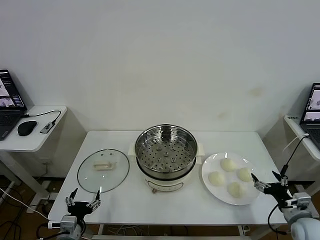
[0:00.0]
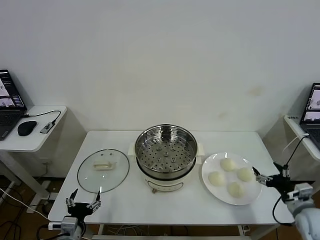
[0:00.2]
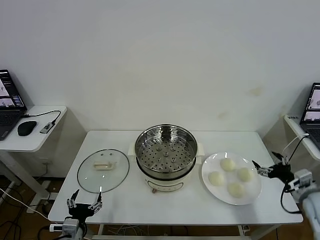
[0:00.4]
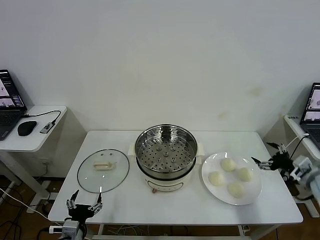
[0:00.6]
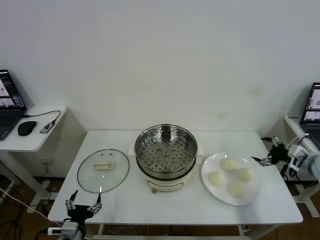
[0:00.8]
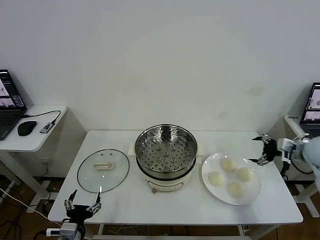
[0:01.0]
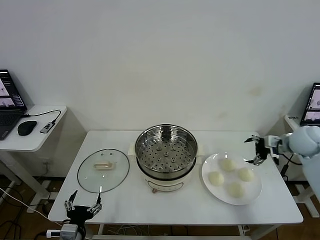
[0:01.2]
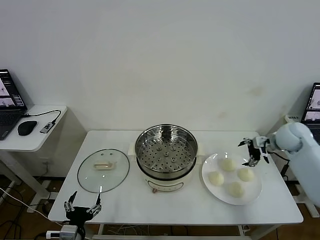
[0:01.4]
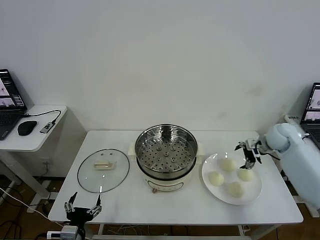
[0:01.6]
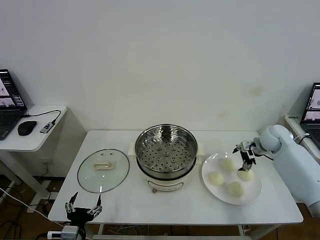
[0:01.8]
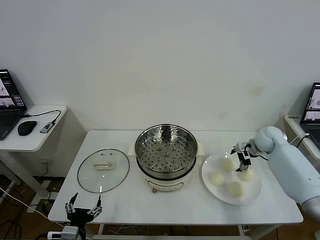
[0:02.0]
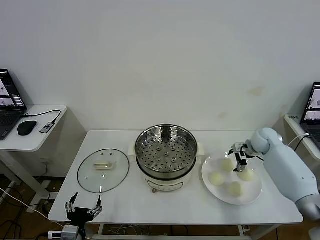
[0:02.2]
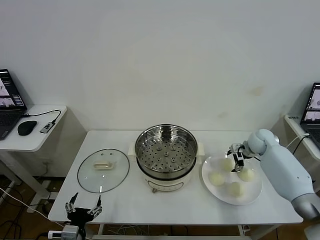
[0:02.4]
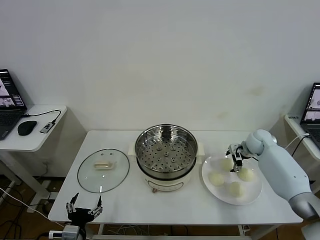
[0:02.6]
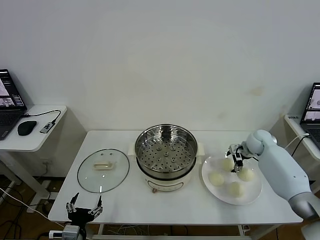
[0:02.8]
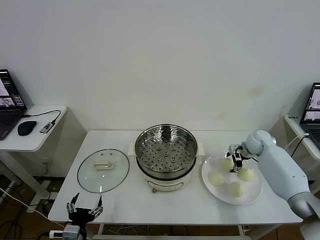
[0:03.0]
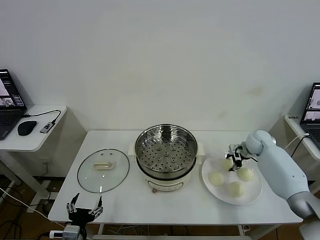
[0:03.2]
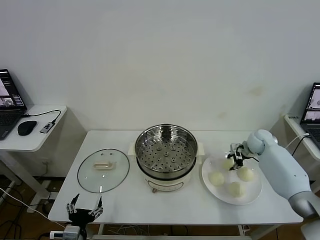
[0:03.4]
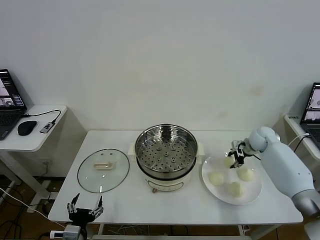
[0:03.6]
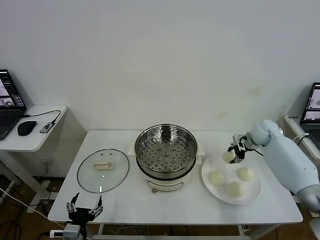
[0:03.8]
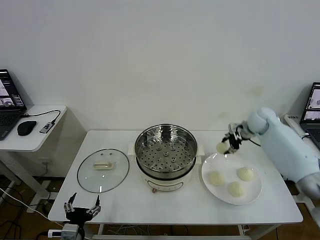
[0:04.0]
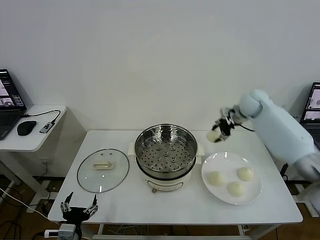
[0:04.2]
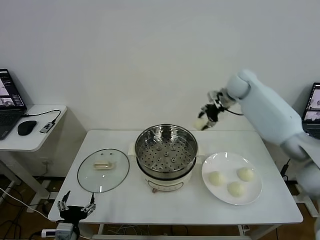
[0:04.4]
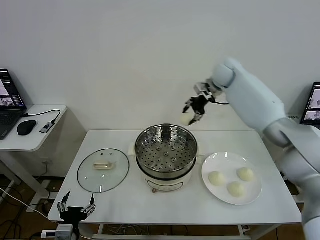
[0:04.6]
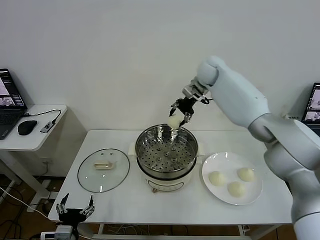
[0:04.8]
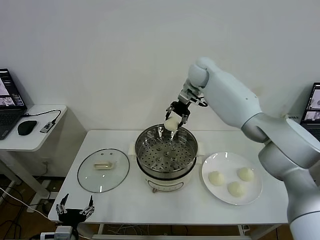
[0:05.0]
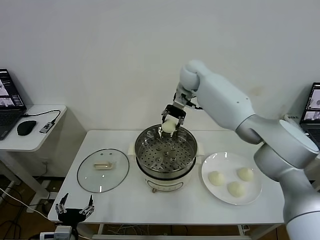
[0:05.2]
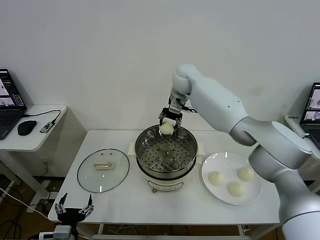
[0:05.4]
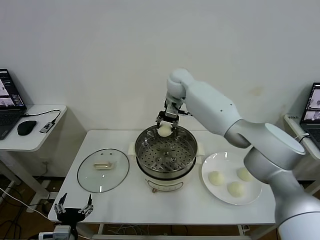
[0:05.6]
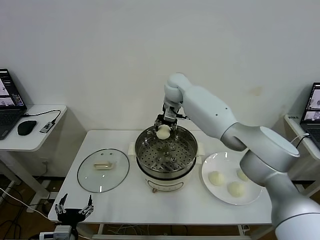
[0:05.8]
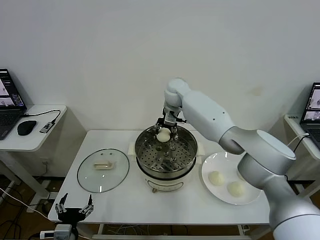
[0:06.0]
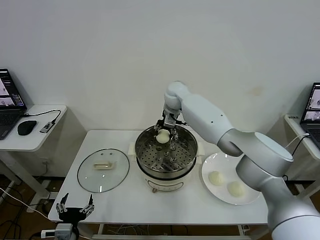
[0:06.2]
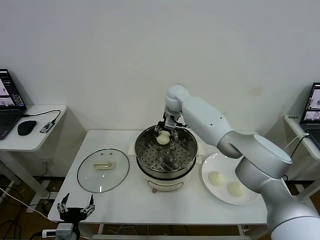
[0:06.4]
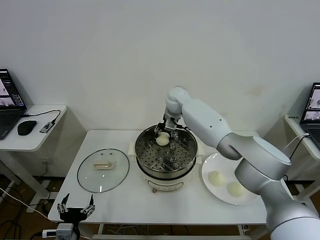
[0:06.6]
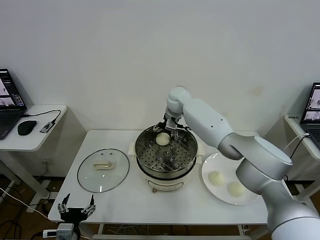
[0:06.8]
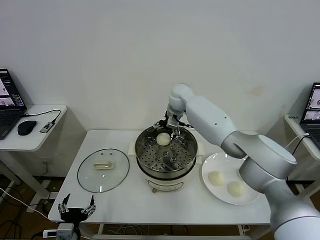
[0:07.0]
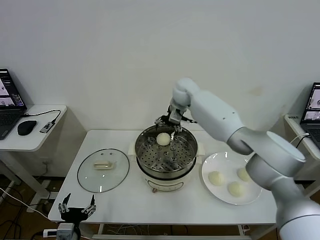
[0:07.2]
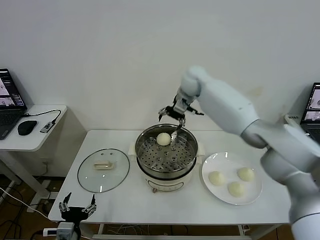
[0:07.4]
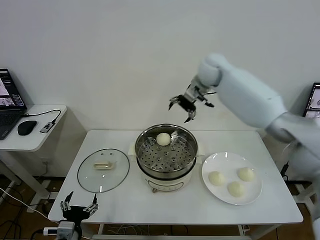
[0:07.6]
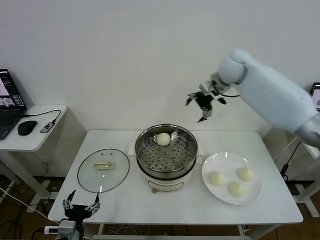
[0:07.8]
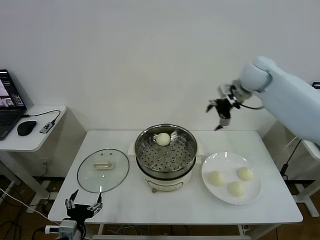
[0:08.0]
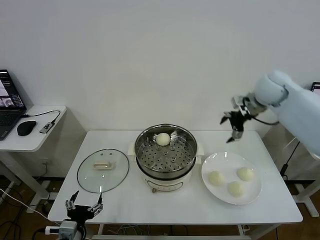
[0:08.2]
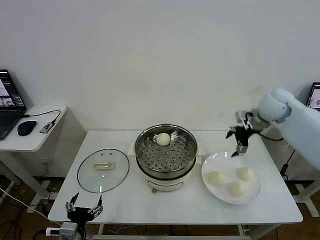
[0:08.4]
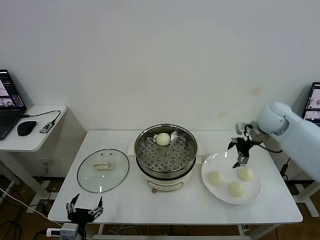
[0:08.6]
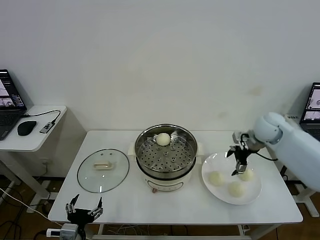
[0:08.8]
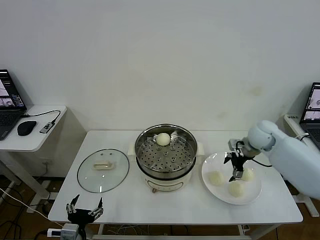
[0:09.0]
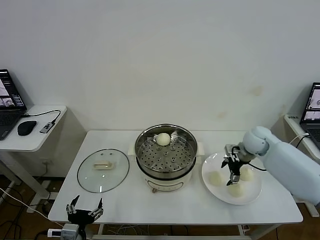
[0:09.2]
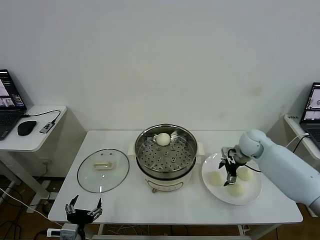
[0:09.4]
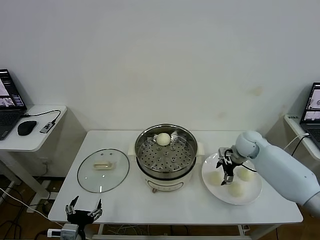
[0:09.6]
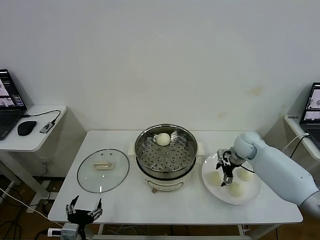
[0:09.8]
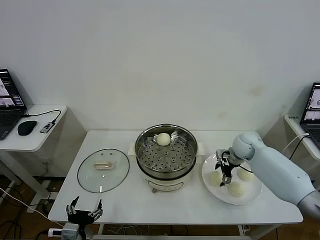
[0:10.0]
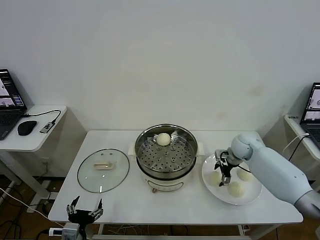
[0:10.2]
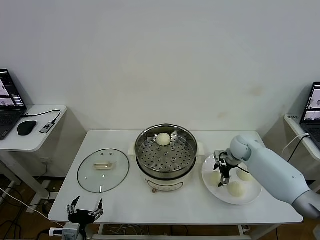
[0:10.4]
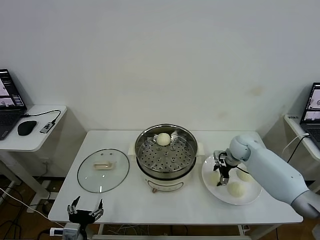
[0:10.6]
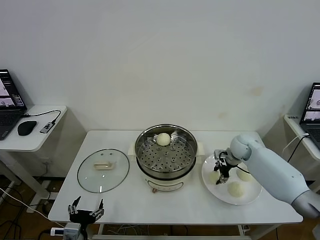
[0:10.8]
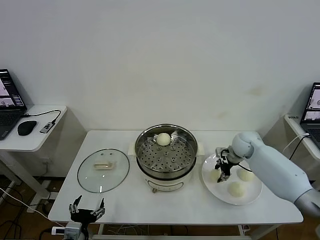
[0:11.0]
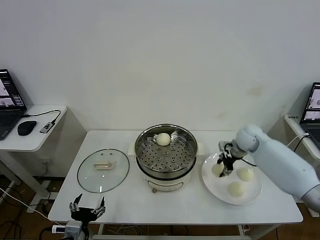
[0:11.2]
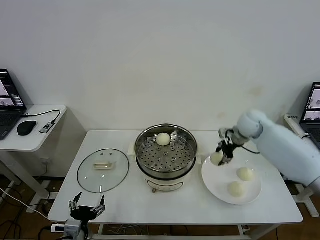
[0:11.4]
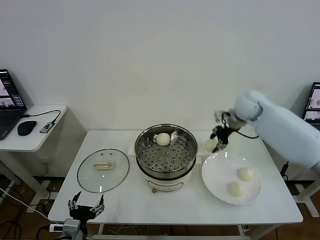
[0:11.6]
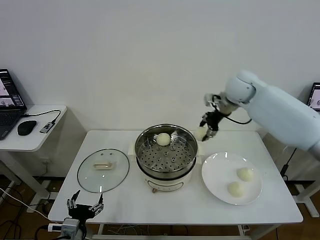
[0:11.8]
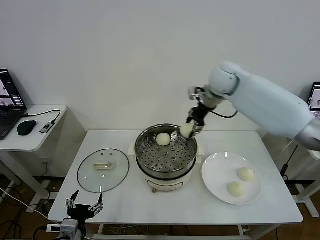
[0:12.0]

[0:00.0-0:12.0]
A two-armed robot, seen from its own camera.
Task of the whole recording: take steamed baozi put them in steamer then cover it.
Step, 0:00.0 to 0:03.2: Grasp the baozi in the plate with right gripper.
Step, 0:03.4 to 0:06.8: Place the baozi on the steamer with right gripper.
Step, 0:07.0 to 0:10.8: Grasp the baozi in the plate with right gripper.
0:01.6 to 0:03.0: The right gripper travels downward by some 5 cm, and closes up.
0:03.0 to 0:04.4: The right gripper heads upward, to the left and forward, covering approximately 30 cm.
0:04.4 to 0:06.0: The right gripper is displaced to the left and downward by about 20 cm.
0:06.0 to 0:07.6: The right gripper heads to the right and upward, covering about 20 cm, and opens its fingers.
0:07.6 to 0:09.0: The right gripper is displaced downward, to the right and backward by about 30 cm.
0:09.0 to 0:10.4: The right gripper heads downward, covering roughly 5 cm.
0:10.4 to 0:12.0: The right gripper is displaced upward and to the left by some 30 cm, and closes.

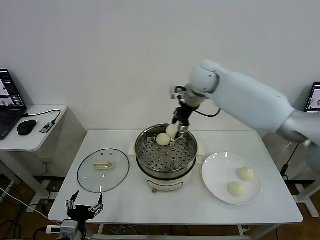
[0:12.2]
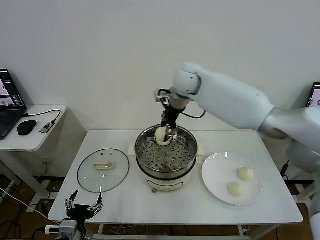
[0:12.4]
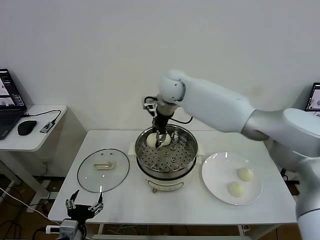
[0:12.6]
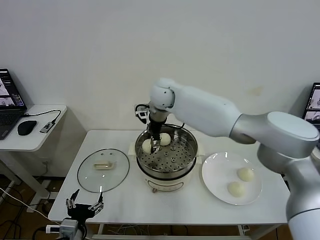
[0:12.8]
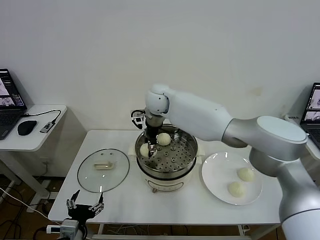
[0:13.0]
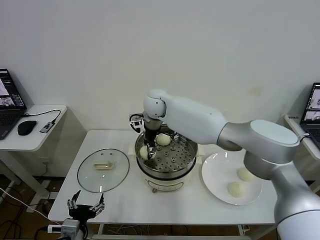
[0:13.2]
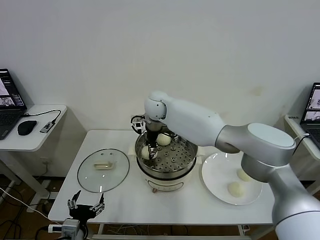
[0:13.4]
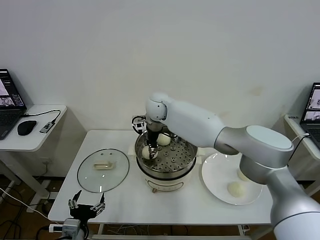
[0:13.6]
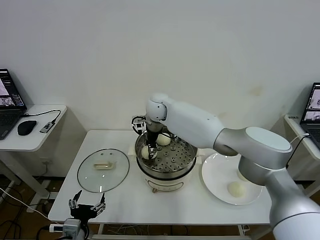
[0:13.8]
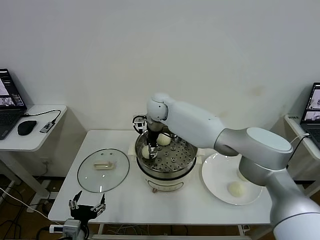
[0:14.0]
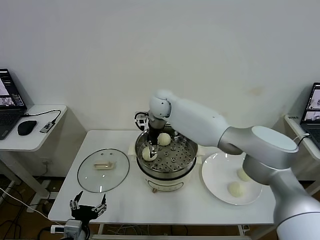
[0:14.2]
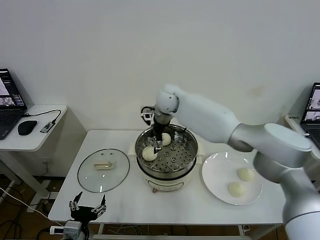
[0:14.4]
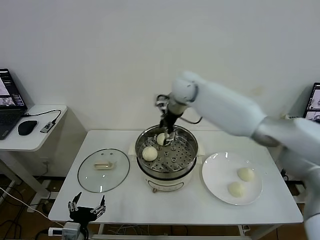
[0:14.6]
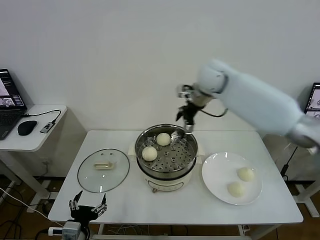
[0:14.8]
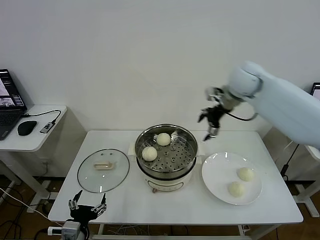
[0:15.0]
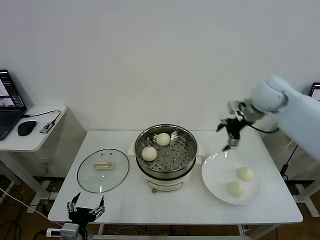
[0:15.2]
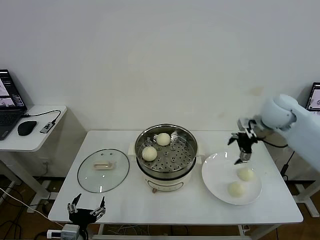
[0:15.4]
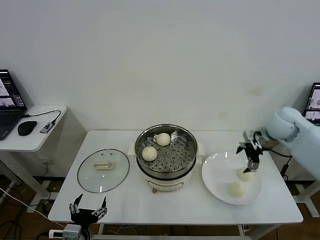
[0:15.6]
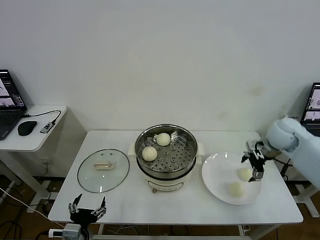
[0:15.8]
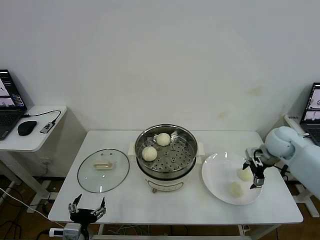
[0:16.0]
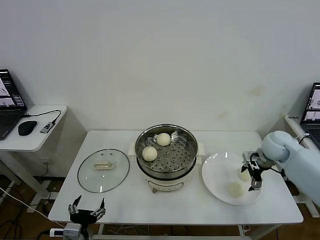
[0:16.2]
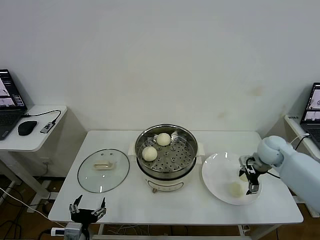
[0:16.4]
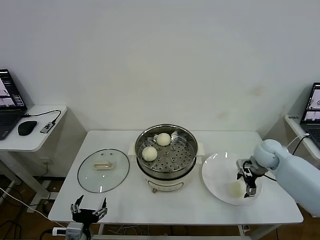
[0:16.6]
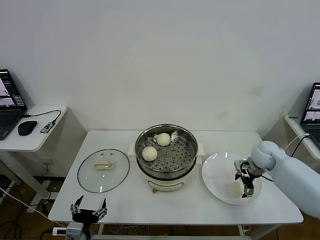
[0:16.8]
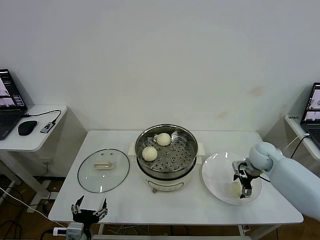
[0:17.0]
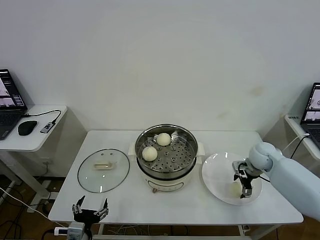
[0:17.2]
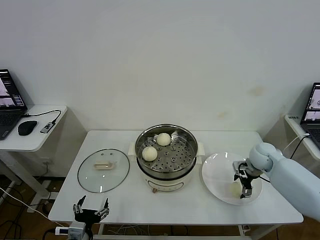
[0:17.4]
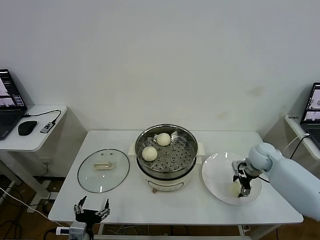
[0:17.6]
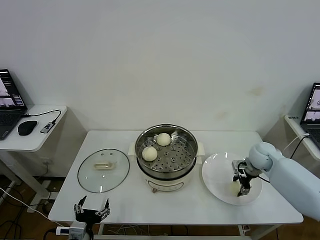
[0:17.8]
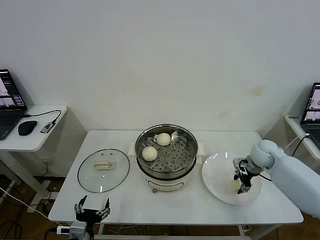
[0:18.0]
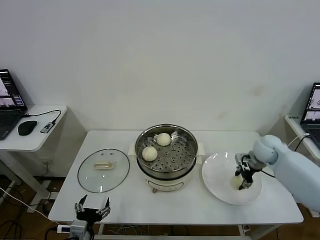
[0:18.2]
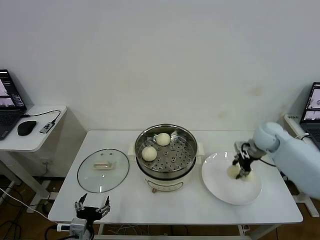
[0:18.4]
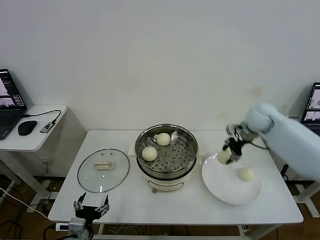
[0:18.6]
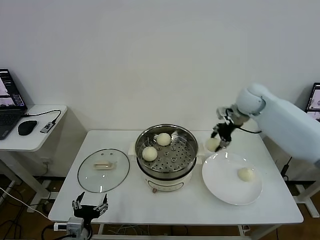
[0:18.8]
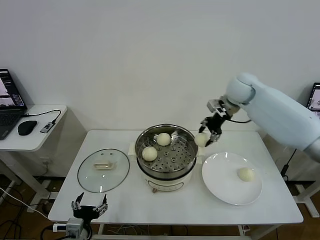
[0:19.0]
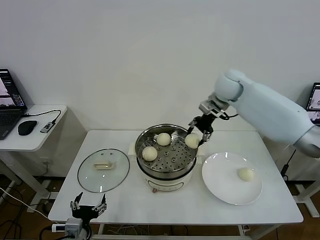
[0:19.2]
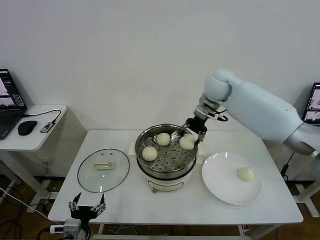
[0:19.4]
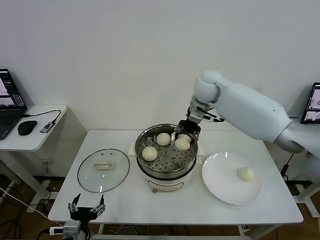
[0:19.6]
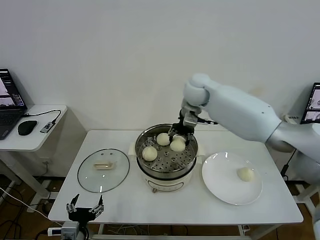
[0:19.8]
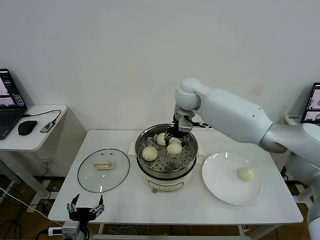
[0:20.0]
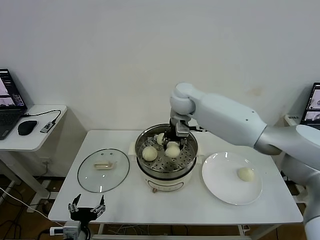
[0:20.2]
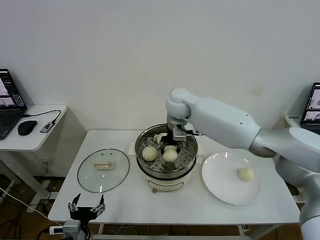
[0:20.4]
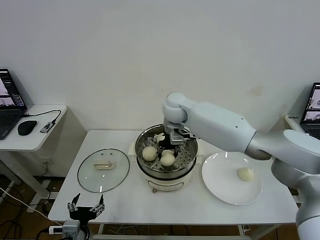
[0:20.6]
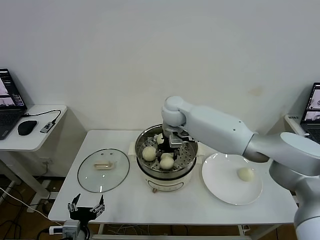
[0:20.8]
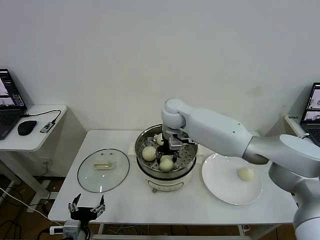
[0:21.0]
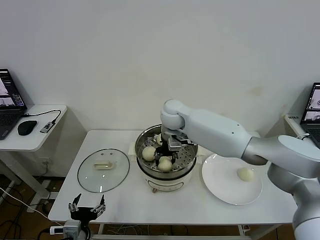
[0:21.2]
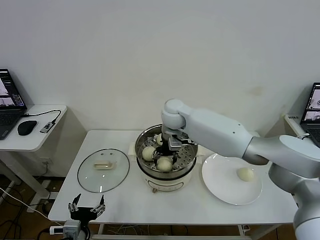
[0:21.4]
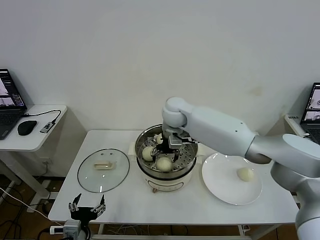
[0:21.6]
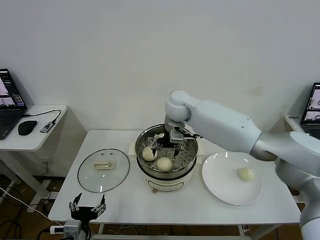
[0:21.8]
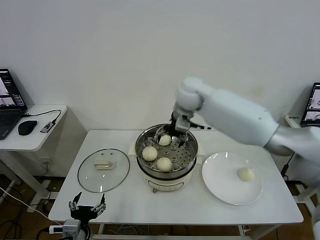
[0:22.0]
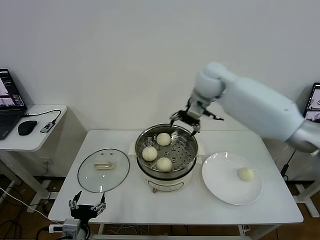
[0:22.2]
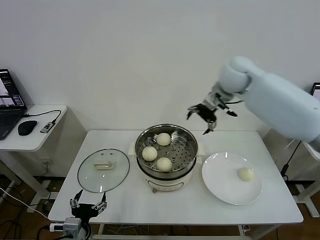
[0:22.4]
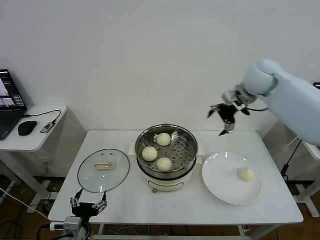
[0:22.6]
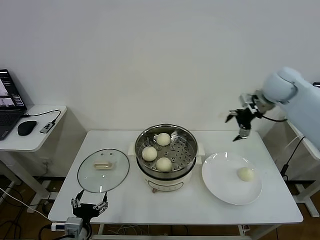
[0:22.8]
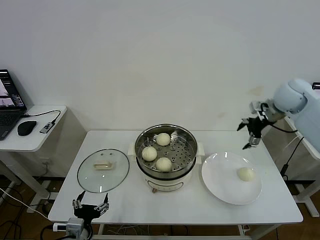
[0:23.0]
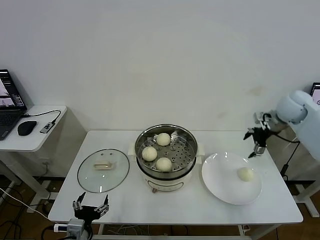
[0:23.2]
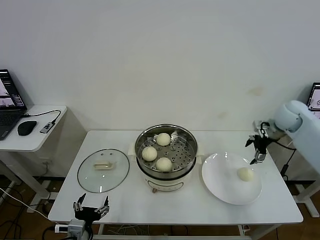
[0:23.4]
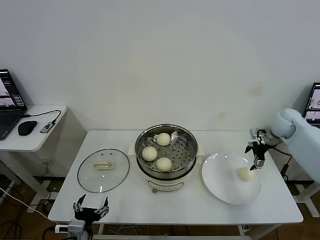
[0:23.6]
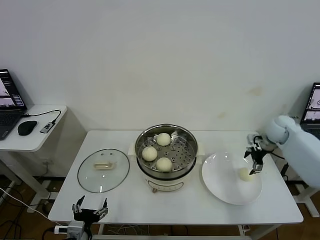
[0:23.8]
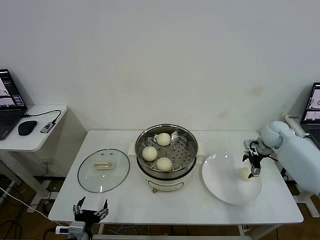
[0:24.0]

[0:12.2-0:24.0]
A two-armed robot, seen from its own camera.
Task of the whole recording: take steamed baozi put them in steamer then cover it.
Step, 0:12.2 to 0:14.2: Place the baozi on the steamer with right gripper.
Step, 0:14.4 to 0:17.8: Grasp the baozi in the plate with right gripper.
Step, 0:18.0 to 0:21.6: Place the baozi on the steamer with right gripper.
0:12.2 to 0:13.6: The right gripper shifts some 15 cm downward and to the left.
0:13.6 to 0:15.2: The right gripper moves to the right, approximately 35 cm, and opens up.
0:15.2 to 0:16.6: The right gripper moves downward, some 20 cm.
0:16.6 to 0:18.2: The right gripper closes.
0:18.2 to 0:19.6: The right gripper travels to the left and upward by approximately 30 cm.
0:19.6 to 0:21.0: The right gripper moves to the left and downward, roughly 10 cm.
0:21.0 to 0:22.6: The right gripper travels to the right and upward by approximately 30 cm, and opens.
0:22.6 to 0:24.0: The right gripper heads downward and to the right, covering roughly 25 cm.
